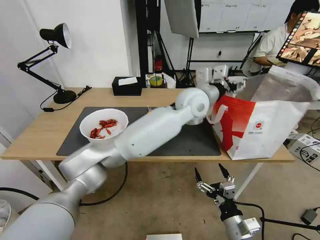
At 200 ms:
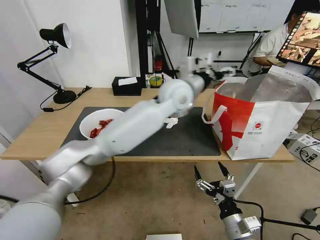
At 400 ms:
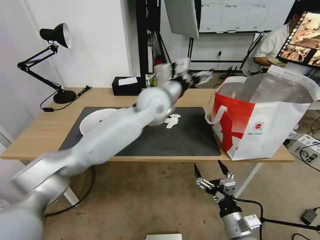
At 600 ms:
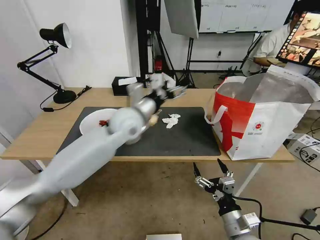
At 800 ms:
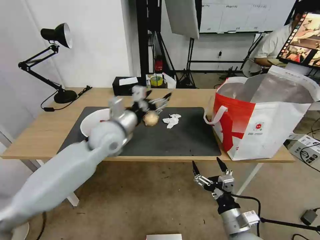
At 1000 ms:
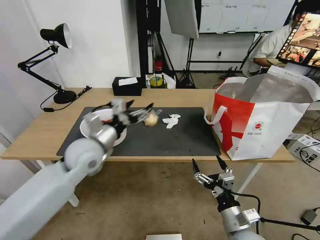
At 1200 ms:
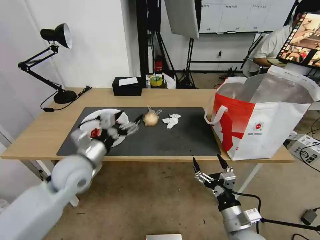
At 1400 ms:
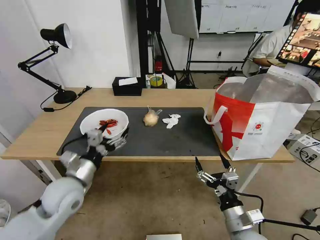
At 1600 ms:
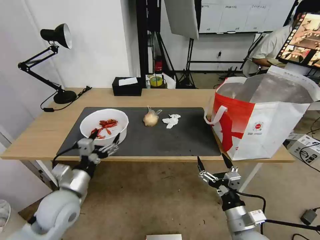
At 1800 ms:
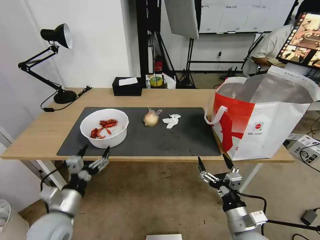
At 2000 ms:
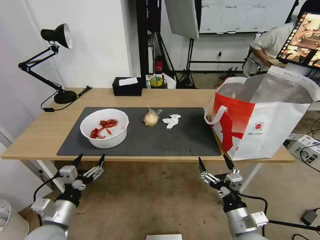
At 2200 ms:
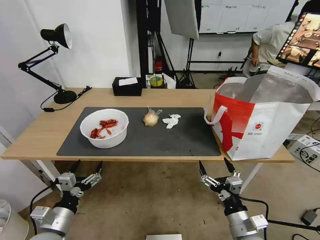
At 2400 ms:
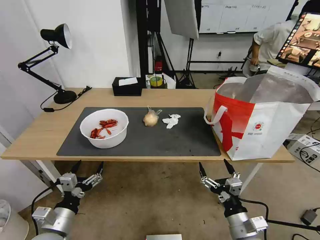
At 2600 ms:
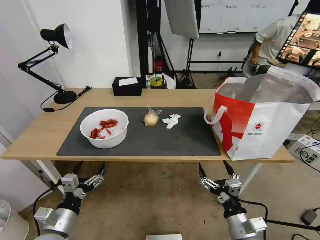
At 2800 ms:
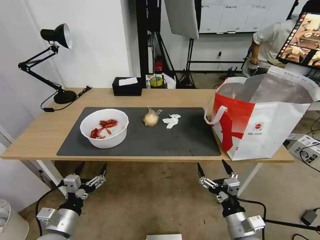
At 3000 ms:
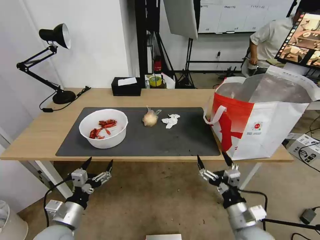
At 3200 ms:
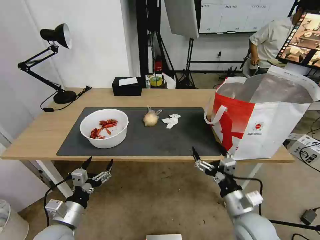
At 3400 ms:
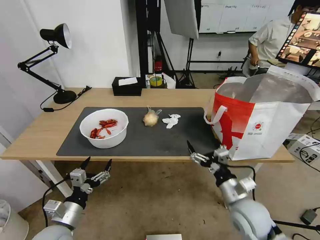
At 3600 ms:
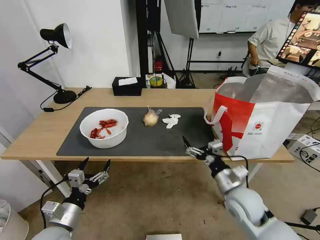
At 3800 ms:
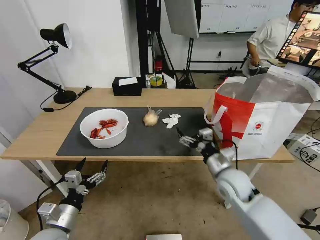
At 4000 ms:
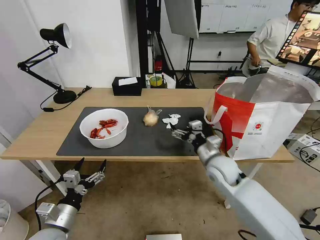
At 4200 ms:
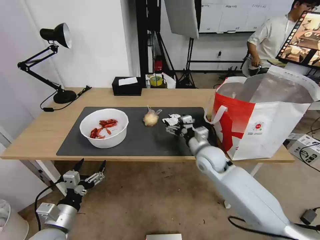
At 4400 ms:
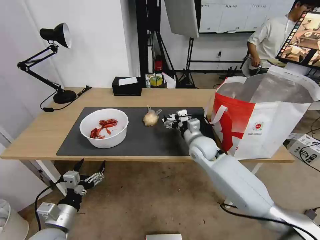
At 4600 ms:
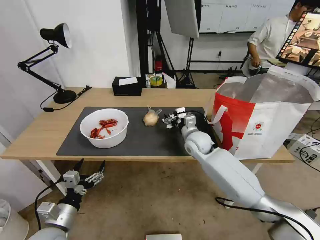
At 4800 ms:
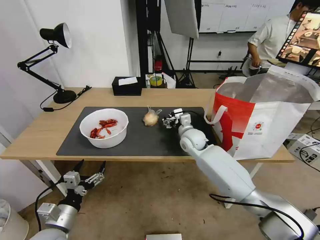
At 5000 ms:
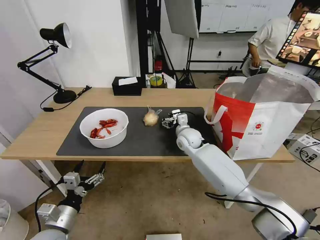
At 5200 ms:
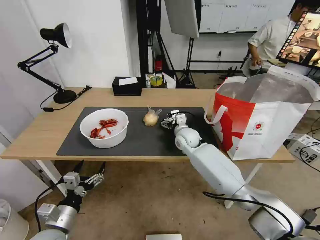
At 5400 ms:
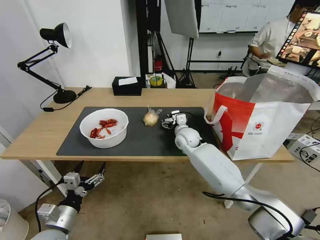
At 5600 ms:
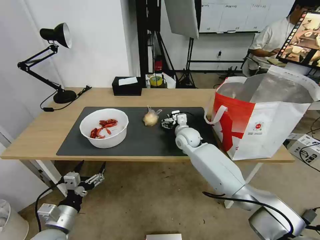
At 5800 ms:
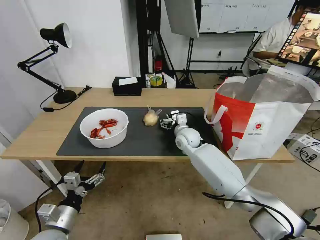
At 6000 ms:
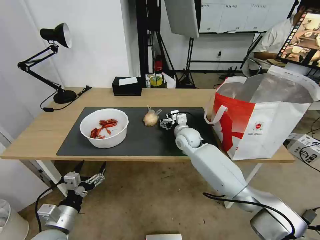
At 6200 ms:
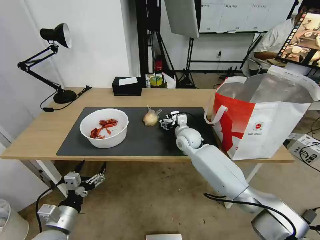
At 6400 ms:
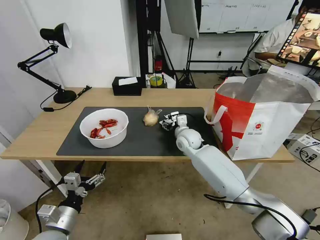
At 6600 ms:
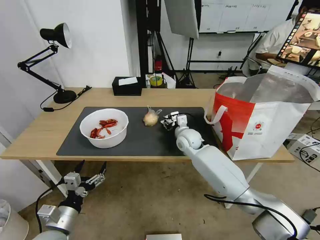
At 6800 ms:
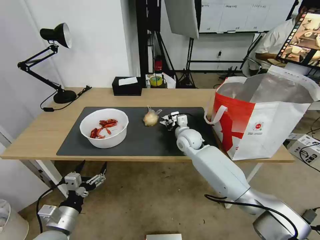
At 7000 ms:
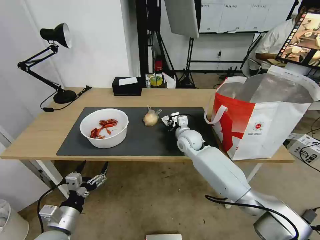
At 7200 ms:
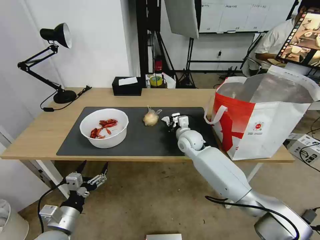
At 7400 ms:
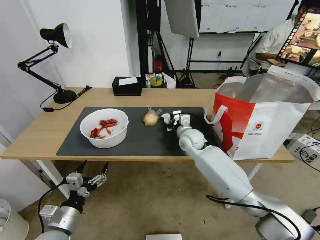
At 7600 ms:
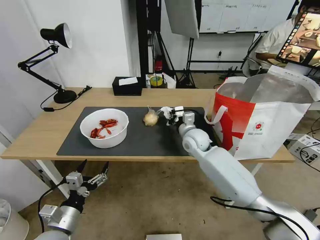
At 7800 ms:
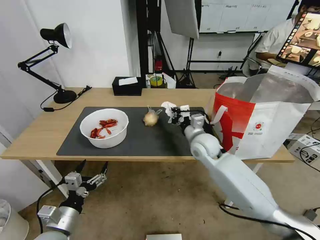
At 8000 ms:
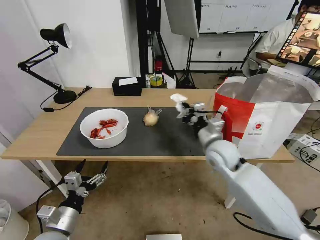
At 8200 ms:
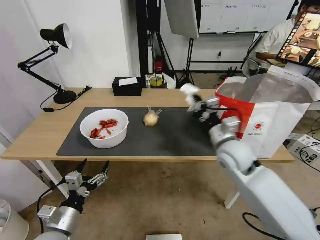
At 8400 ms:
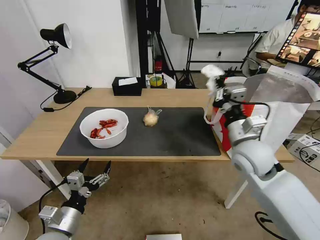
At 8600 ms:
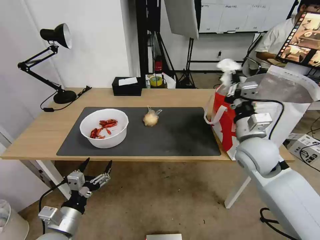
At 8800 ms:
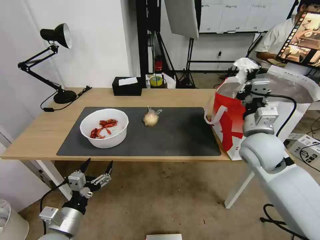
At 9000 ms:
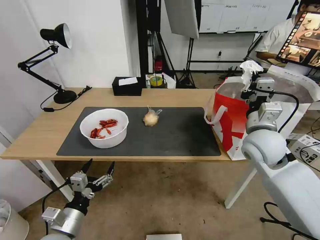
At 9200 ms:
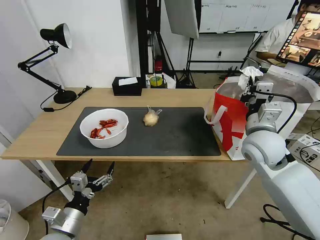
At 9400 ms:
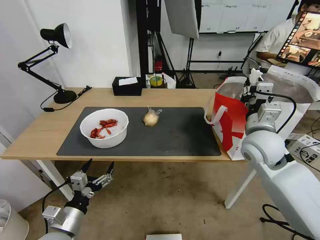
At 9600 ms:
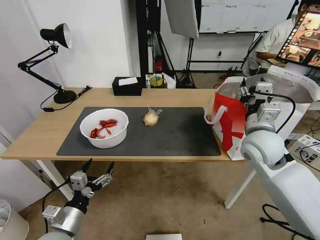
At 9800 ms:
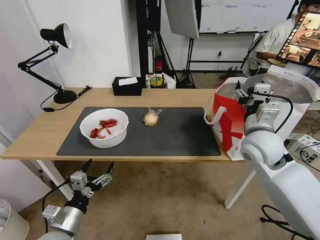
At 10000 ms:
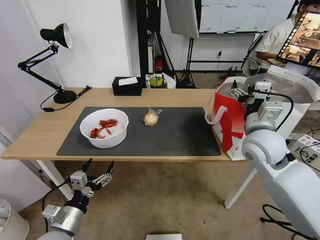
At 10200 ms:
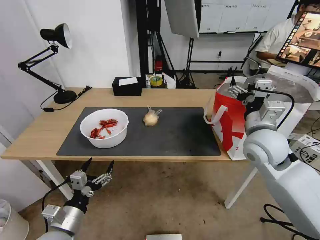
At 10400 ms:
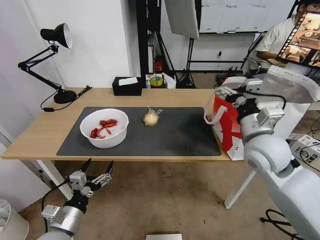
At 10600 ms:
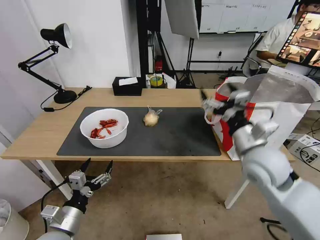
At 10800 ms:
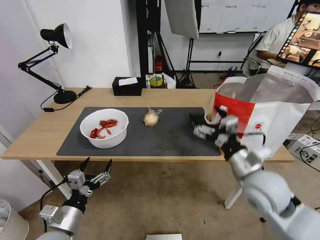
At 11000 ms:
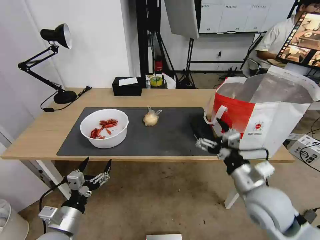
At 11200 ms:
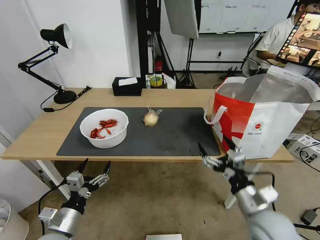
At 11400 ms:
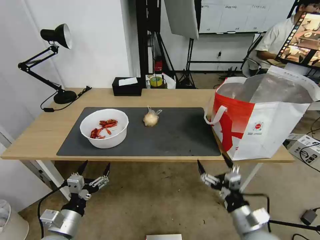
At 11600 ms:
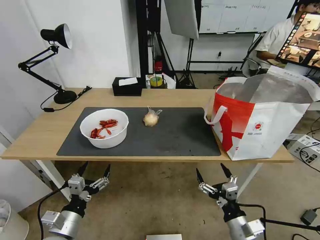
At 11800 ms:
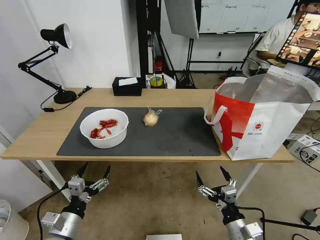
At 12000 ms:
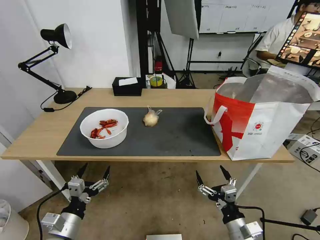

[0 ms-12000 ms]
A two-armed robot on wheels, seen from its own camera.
Task of the whole recording: Pick up the trash from the table and place it into the takeout bag.
0 ms to 1600 ms: The left gripper moves to the left, backward and downward, roughly 50 cm.
1600 ms to 3000 ms: The left gripper goes some 10 cm downward and backward.
3000 ms to 4400 ms: The right gripper goes approximately 30 cm forward.
4400 ms to 6000 ms: The right gripper shifts roughly 5 cm forward.
6000 ms to 7600 ms: The right gripper closes.
7600 ms to 9000 ms: The right gripper goes about 20 cm to the right, backward and upward.
9000 ms to 10400 ms: The right gripper opens.
10400 ms to 12000 ms: The right gripper heads downward and backward, covering some 30 cm.

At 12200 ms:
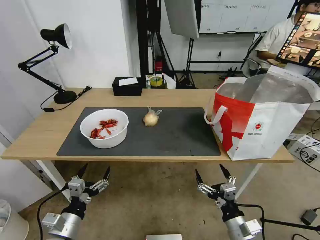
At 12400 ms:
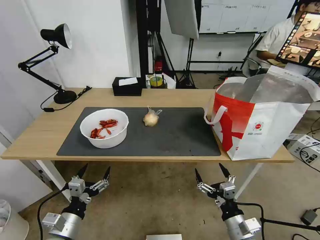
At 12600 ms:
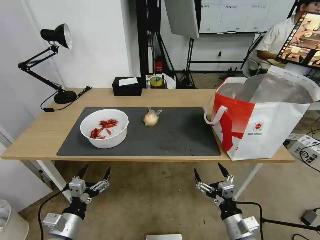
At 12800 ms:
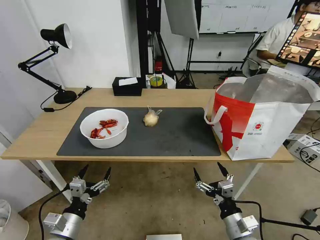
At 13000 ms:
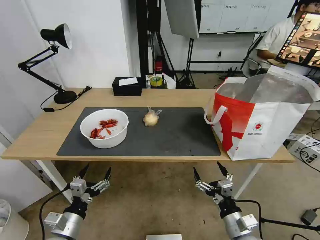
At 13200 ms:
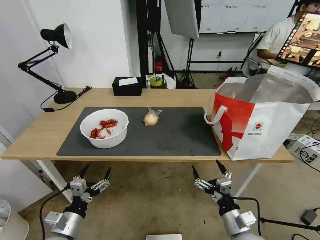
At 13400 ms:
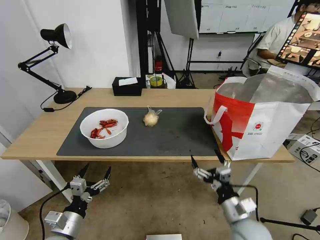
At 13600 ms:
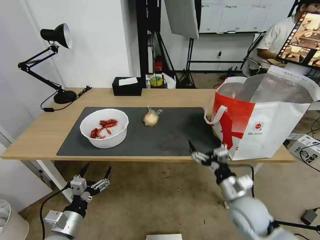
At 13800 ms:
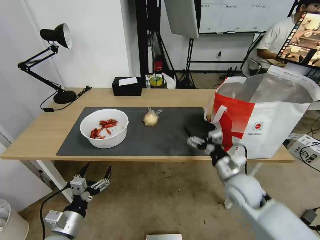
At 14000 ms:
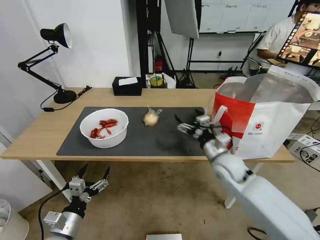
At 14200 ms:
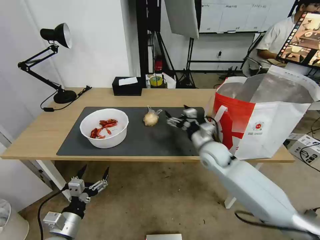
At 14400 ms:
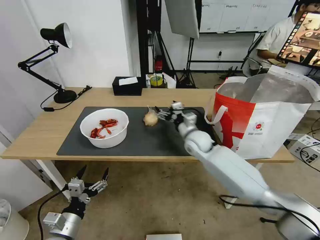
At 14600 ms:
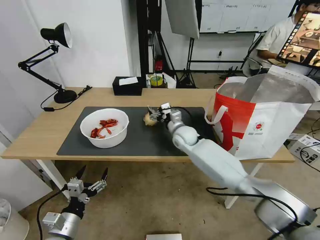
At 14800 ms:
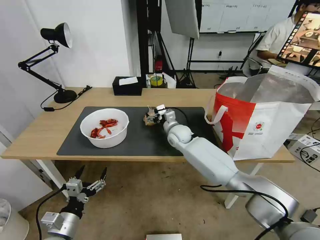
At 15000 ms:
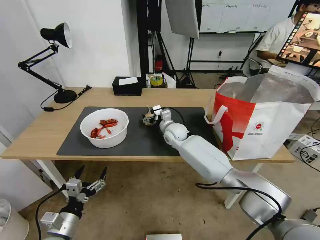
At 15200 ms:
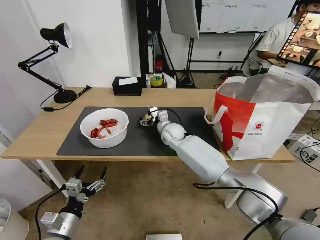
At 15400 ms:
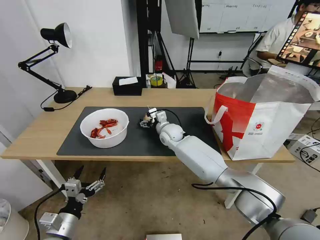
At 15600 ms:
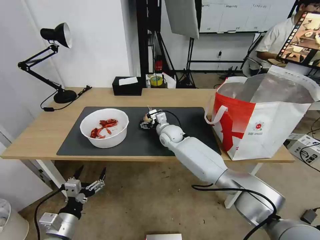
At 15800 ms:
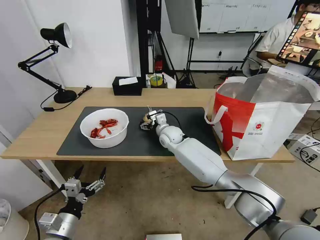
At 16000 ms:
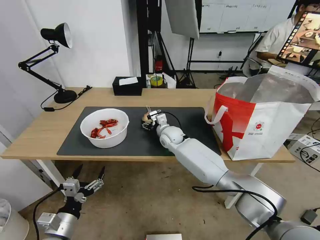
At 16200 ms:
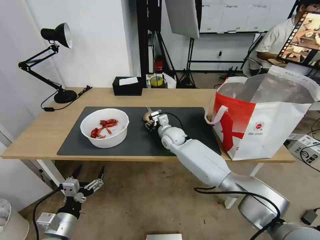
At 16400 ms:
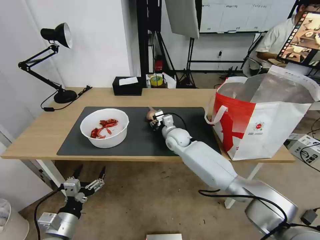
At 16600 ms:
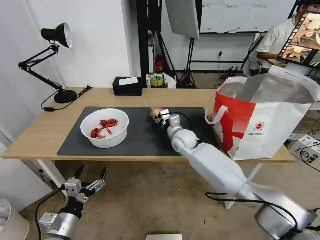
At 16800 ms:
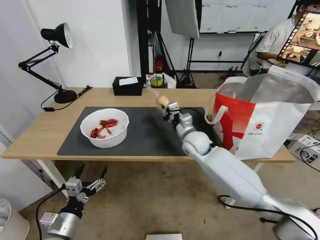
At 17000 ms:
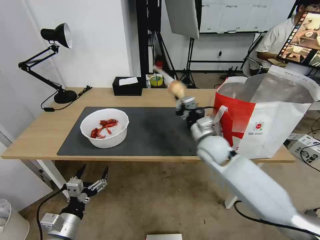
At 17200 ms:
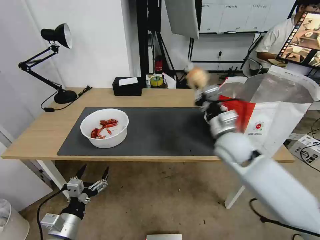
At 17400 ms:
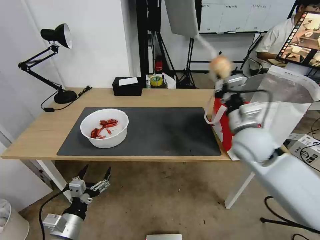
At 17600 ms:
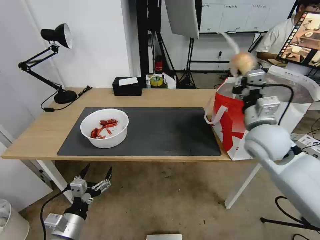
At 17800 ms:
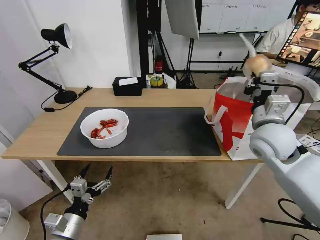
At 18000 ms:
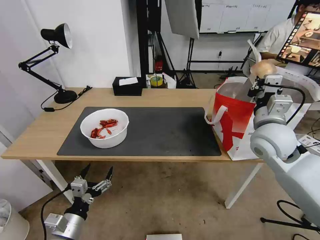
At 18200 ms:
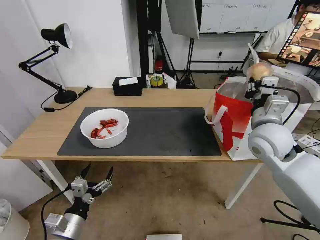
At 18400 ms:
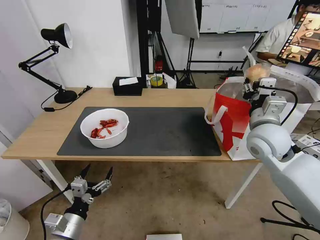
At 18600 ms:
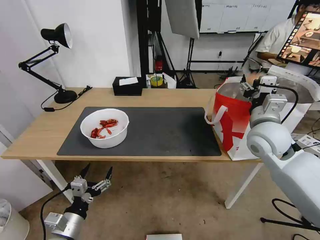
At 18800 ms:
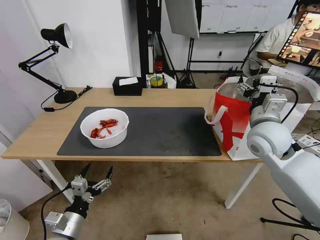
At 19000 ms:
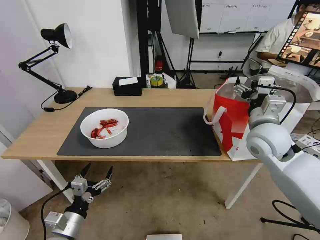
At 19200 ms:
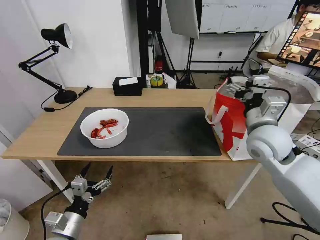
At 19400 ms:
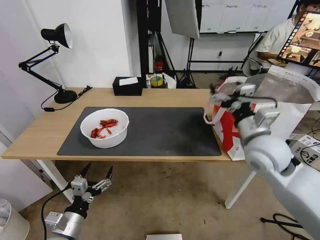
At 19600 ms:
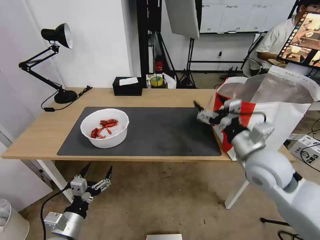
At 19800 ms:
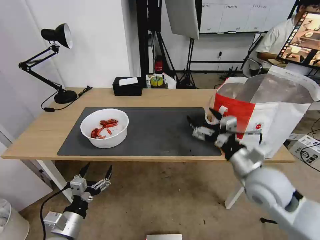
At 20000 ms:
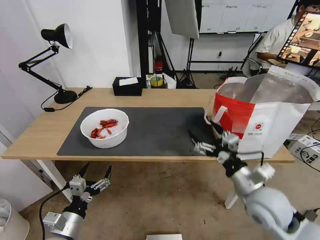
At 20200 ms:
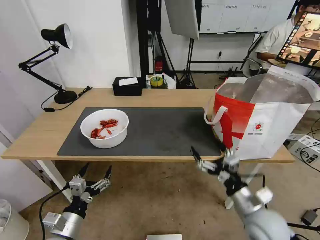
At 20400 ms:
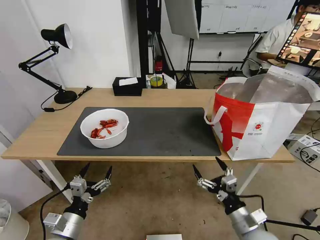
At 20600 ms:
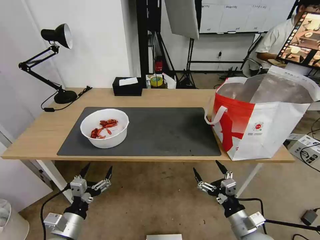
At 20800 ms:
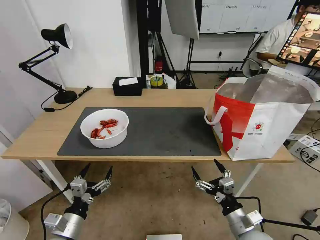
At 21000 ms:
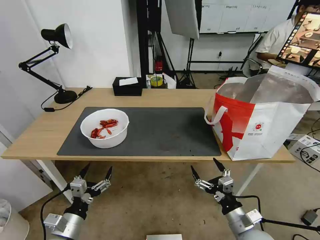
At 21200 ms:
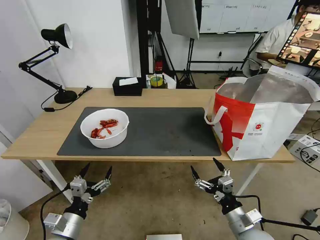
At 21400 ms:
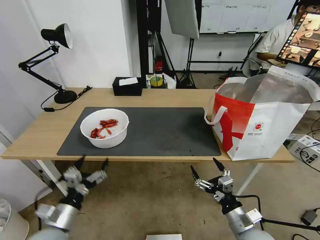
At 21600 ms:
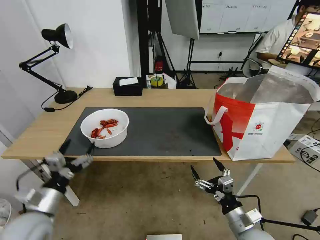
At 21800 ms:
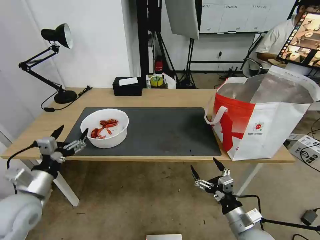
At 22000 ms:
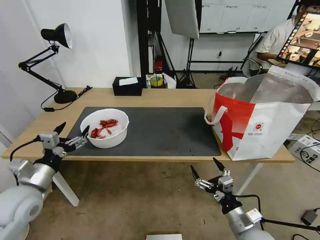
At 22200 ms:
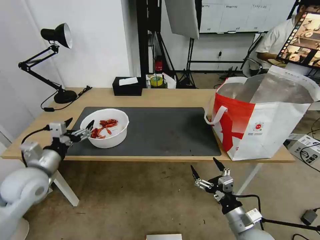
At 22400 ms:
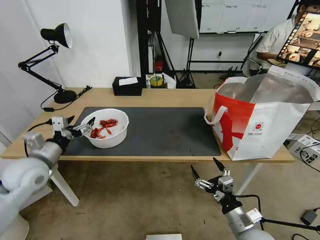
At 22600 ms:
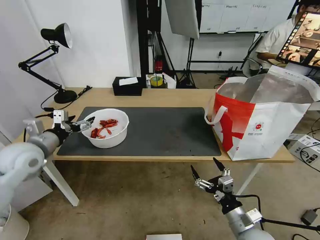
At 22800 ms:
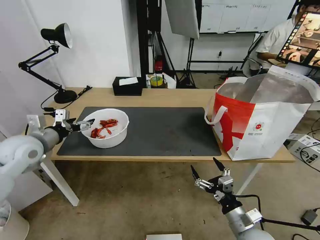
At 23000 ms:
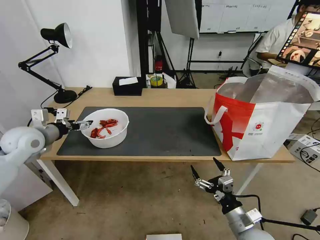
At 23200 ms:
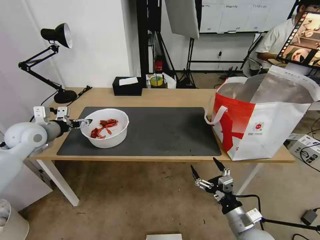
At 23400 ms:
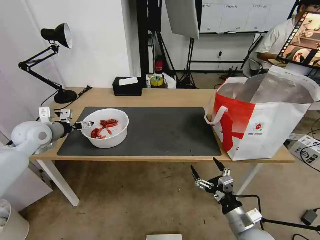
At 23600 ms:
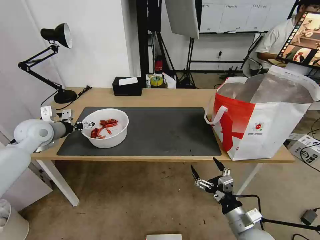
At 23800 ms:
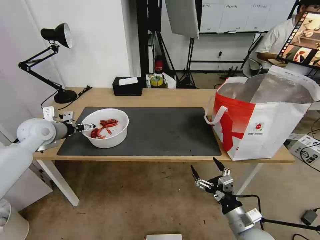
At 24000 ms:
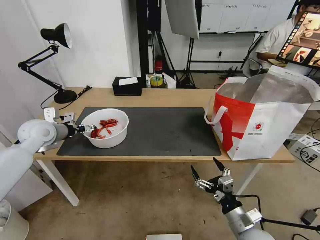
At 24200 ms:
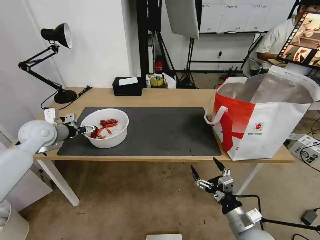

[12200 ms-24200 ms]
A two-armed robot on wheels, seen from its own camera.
Task of the whole recording: Pick up the trash from the table and place it into the takeout bag.
12200 ms to 13800 ms: The right gripper heads forward and upward, covering roughly 20 cm.
13800 ms to 15200 ms: The right gripper shifts approximately 30 cm forward and to the left.
15200 ms to 16600 ms: The right gripper travels to the right by roughly 5 cm, and closes its fingers.
16600 ms to 18200 ms: The right gripper moves to the right, upward and backward, approximately 25 cm.
18200 ms to 19800 ms: The right gripper heads backward and downward, covering about 10 cm, and opens up.
19800 ms to 21200 ms: The right gripper moves downward and backward, some 20 cm.
21200 ms to 22600 ms: The left gripper shifts approximately 30 cm forward, upward and to the left.
22600 ms to 24200 ms: The left gripper goes roughly 10 cm forward.
